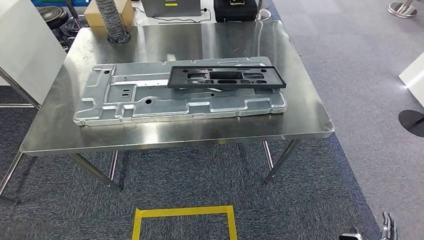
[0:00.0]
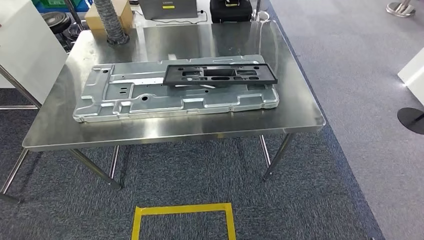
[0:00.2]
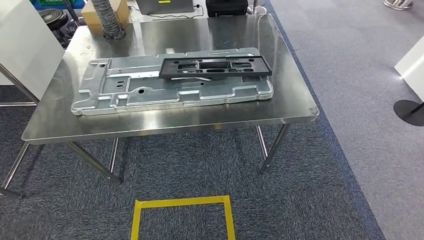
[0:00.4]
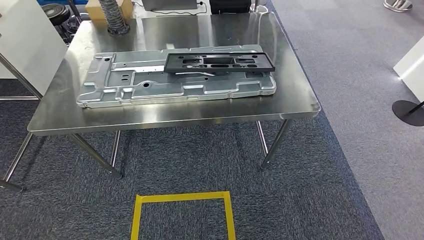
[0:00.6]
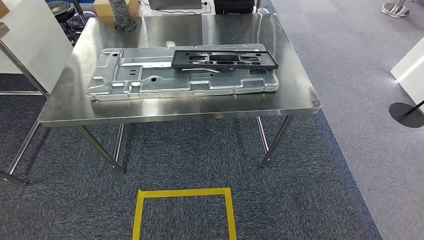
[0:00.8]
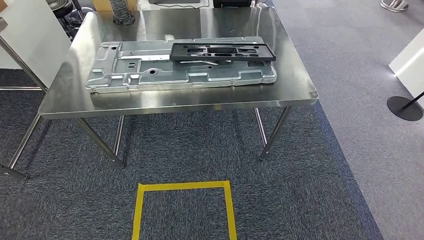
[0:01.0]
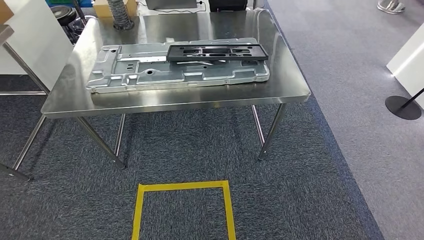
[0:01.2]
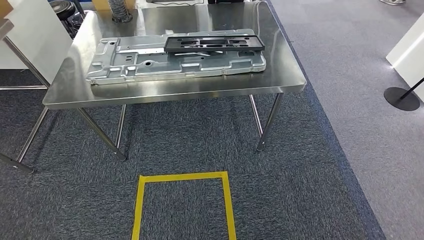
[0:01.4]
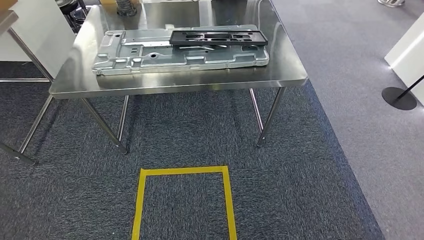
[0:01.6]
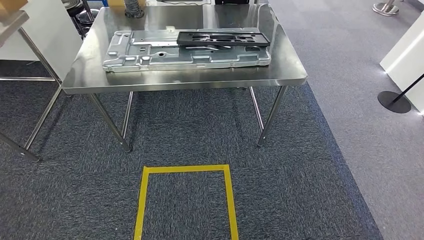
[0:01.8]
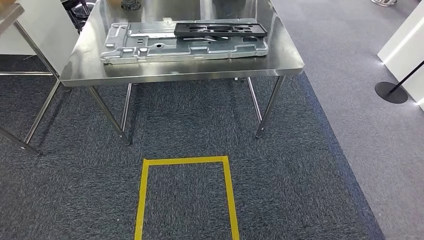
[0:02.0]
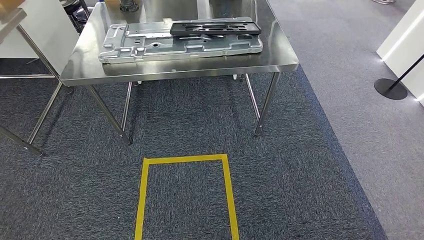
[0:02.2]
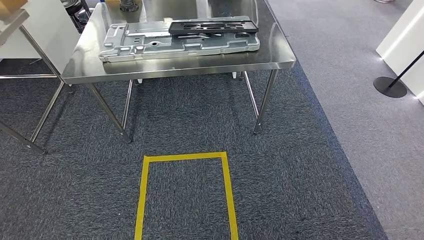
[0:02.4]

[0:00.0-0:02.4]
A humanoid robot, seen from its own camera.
Step, 0:00.0 to 0:02.4: Return to the initial position at the workbench.

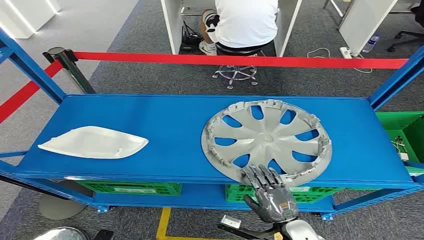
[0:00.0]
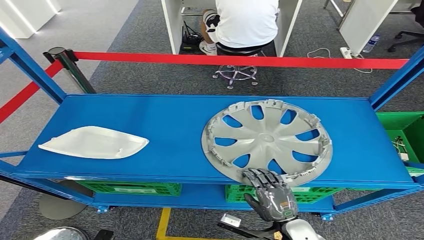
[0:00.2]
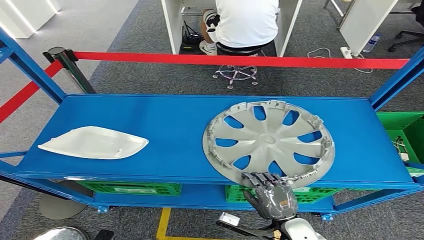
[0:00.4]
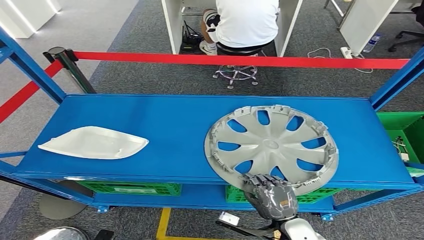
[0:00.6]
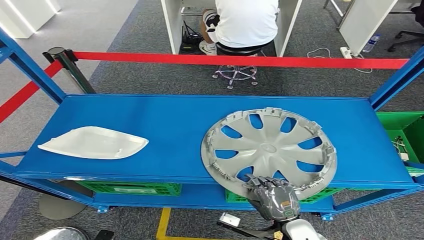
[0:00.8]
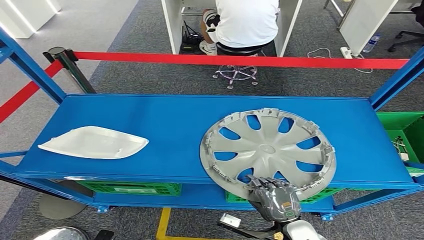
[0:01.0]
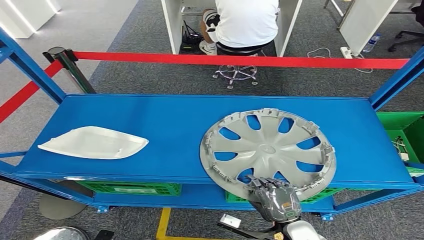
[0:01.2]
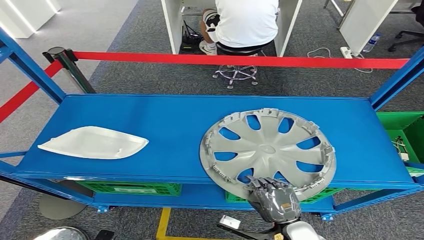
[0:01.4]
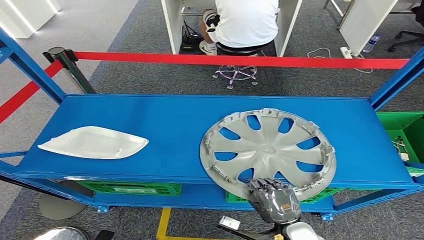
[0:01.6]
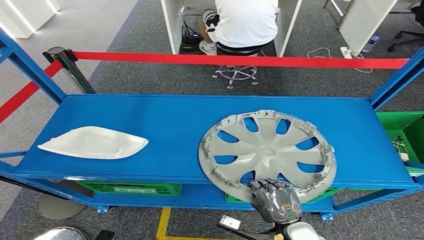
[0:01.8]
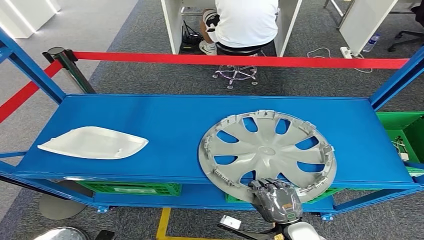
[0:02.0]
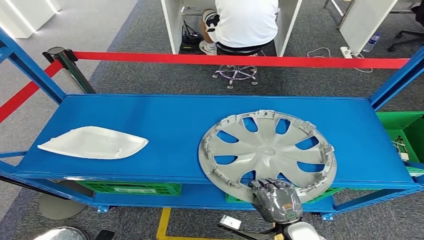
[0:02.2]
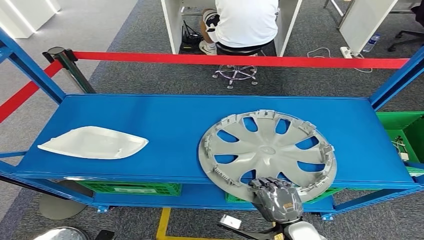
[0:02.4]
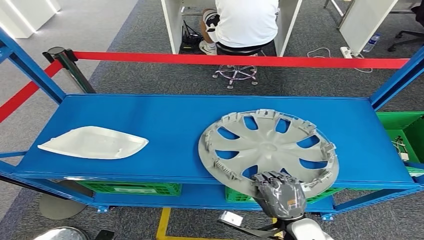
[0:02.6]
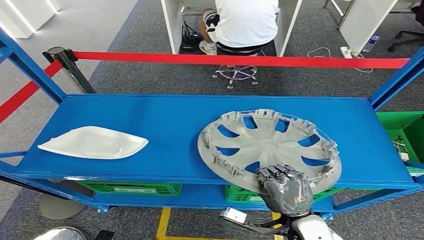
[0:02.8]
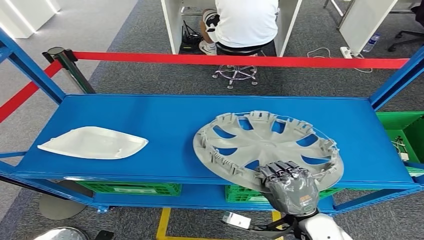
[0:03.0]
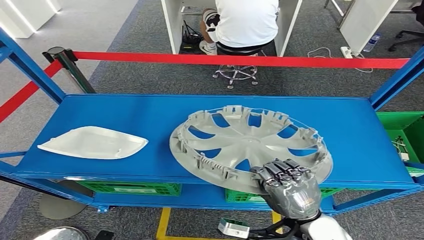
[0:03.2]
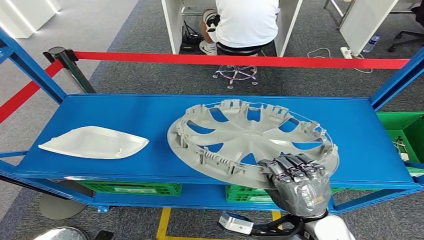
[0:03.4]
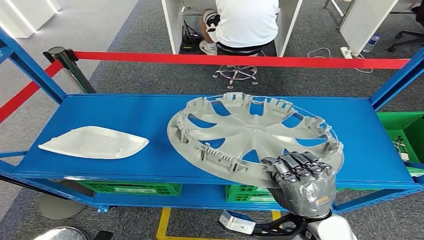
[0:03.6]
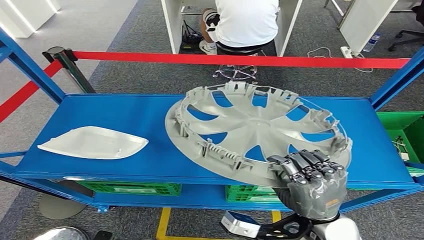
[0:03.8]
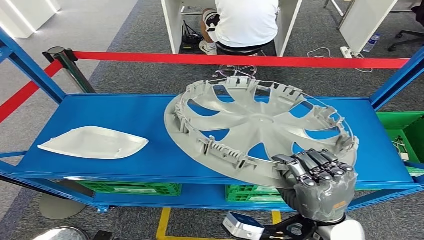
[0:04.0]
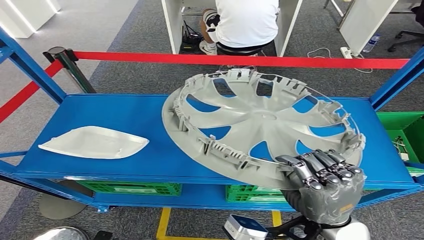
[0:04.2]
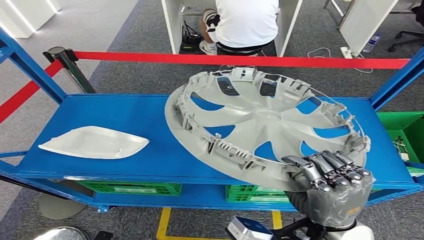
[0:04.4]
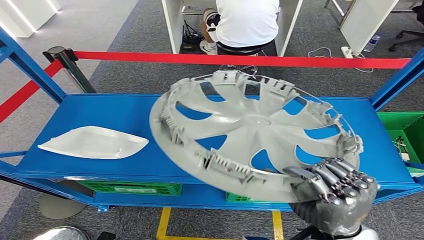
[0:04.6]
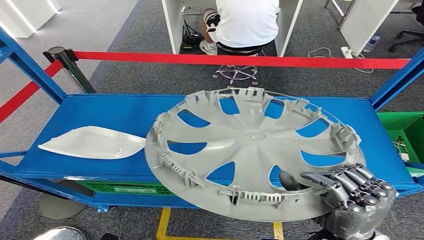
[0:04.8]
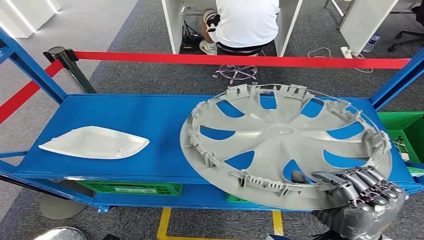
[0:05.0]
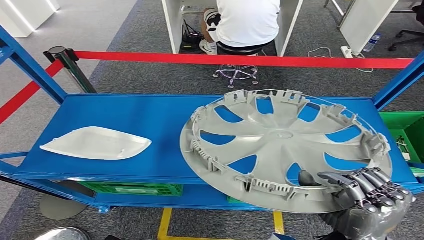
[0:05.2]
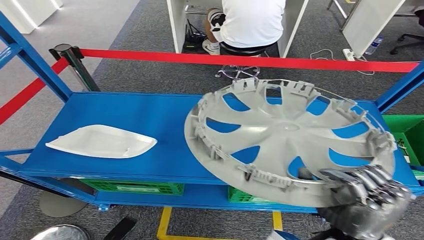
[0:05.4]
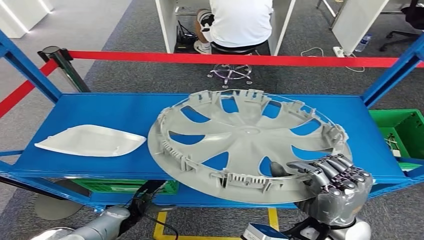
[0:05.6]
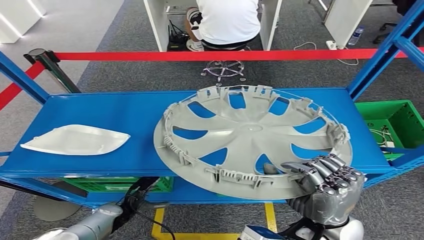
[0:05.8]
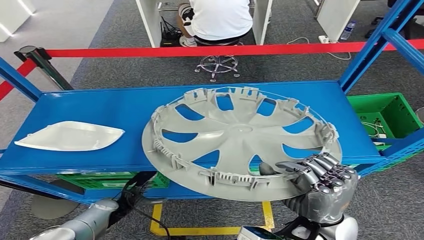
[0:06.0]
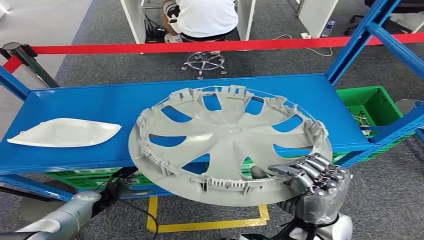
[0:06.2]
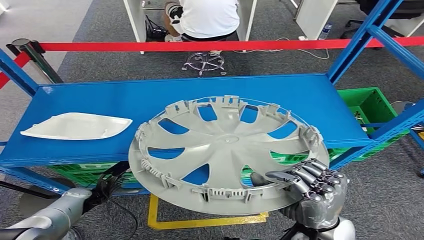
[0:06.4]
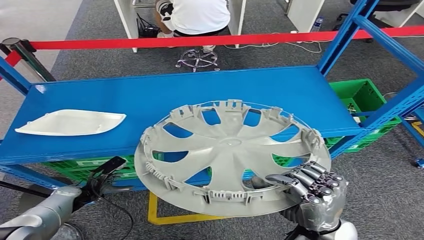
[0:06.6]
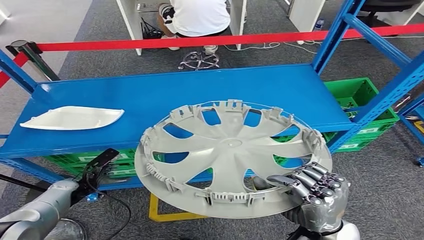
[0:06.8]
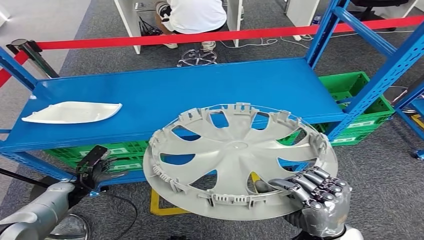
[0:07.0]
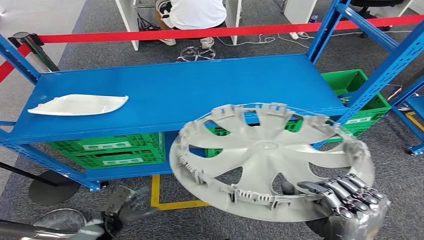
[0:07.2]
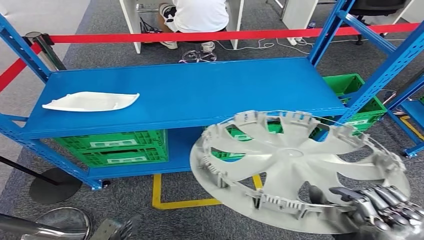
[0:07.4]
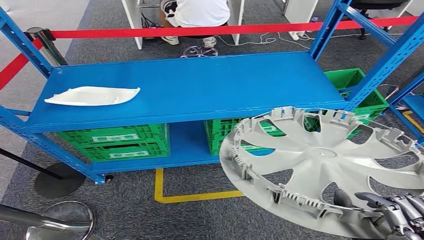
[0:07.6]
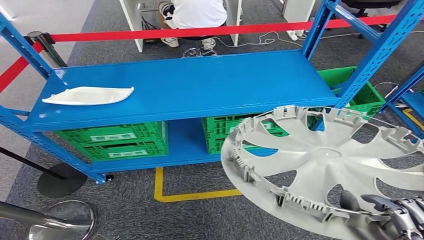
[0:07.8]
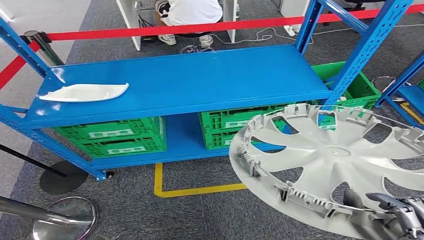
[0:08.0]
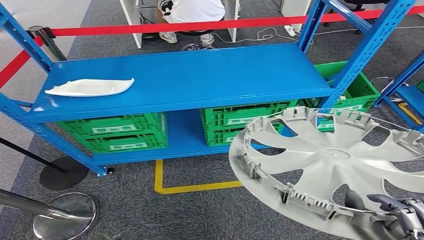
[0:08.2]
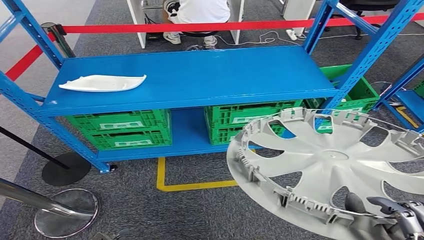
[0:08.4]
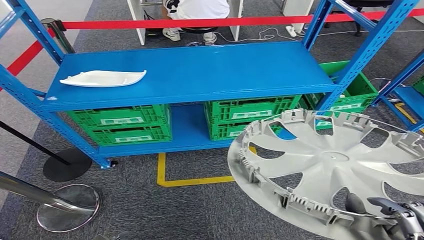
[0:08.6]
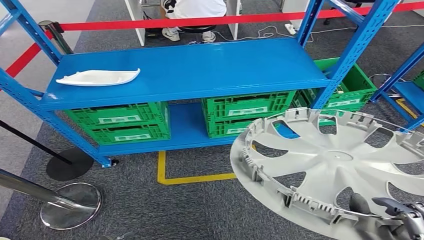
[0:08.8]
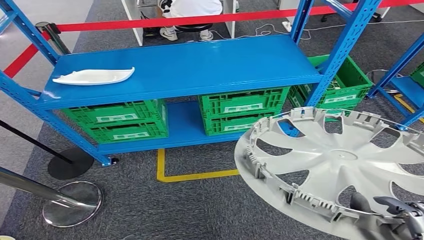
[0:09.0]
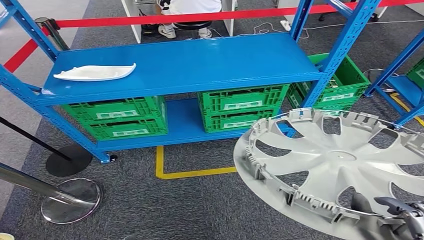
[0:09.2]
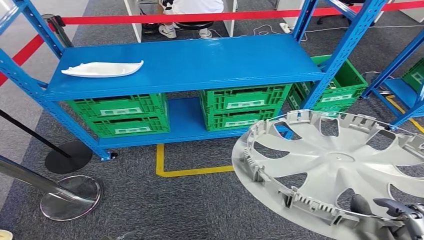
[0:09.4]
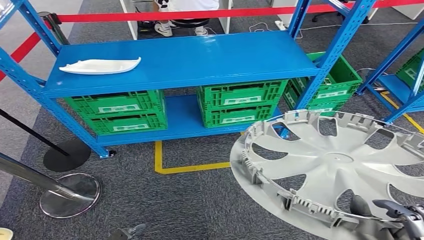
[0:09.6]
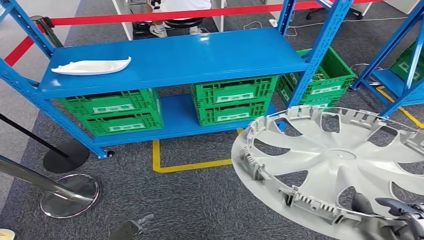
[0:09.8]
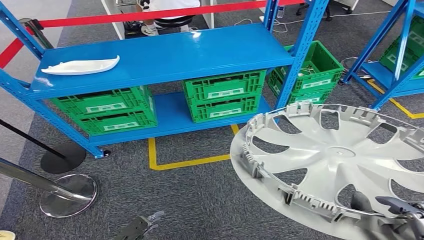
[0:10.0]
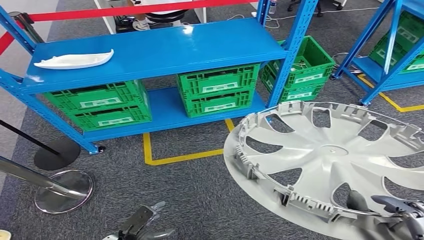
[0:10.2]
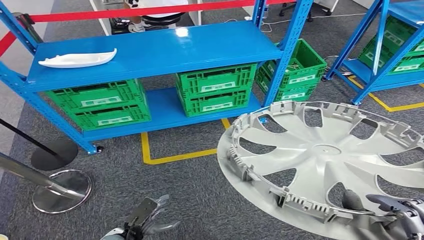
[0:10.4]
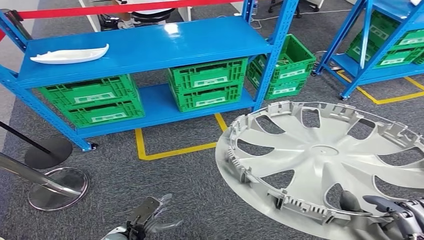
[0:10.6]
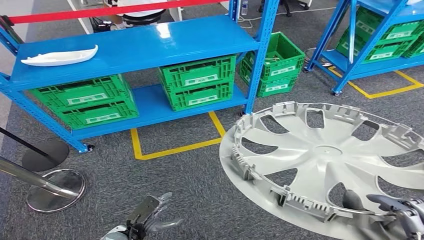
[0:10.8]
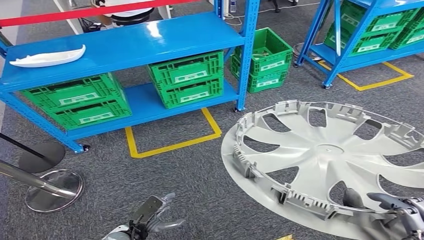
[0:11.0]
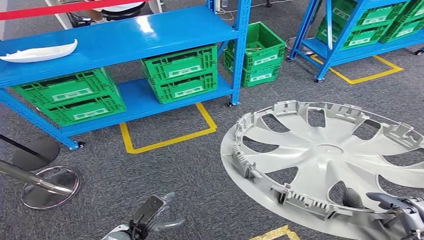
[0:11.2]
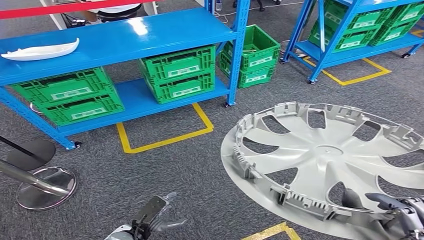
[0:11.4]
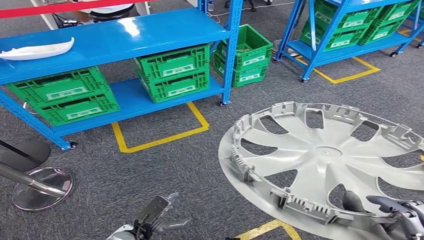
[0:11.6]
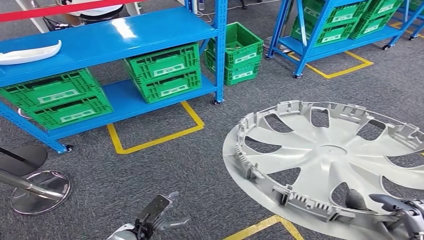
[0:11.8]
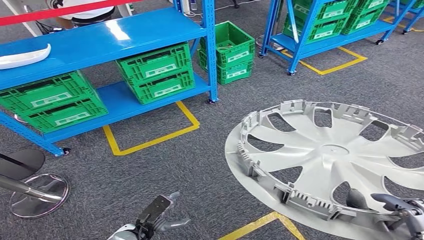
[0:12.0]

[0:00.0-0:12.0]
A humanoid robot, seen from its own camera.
Step, 0:00.0 to 0:06.0: Pick up the small component from the shelf.
0:01.6 to 0:03.0: The right hand moves upward, approximately 10 cm.

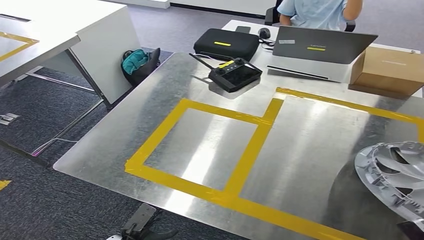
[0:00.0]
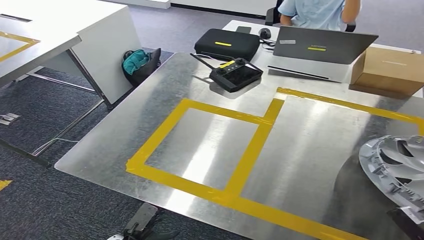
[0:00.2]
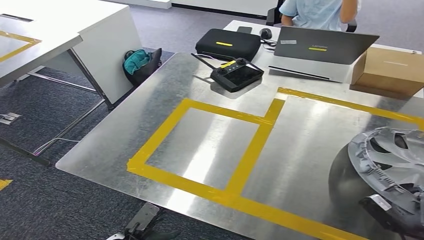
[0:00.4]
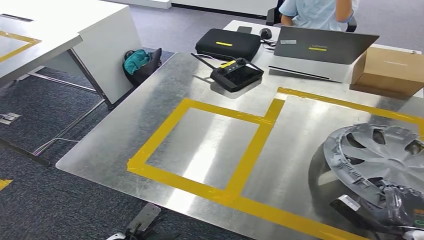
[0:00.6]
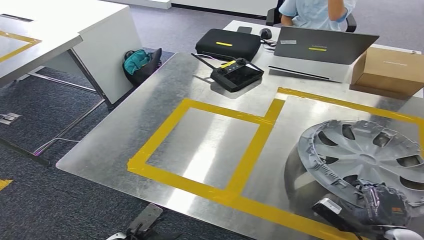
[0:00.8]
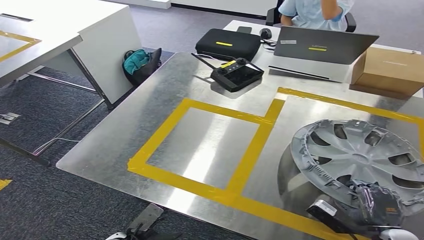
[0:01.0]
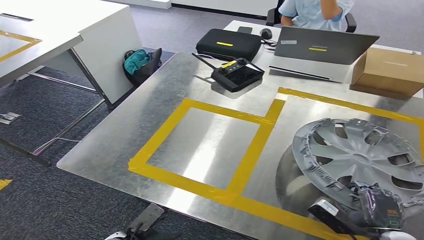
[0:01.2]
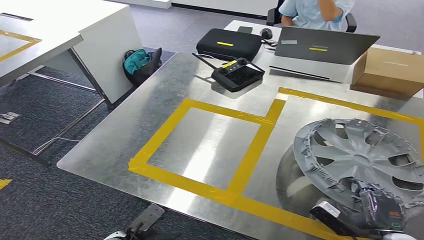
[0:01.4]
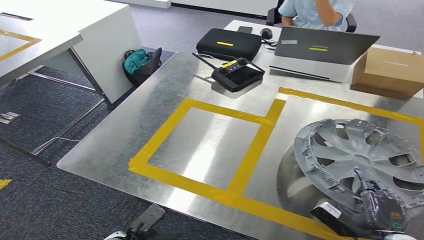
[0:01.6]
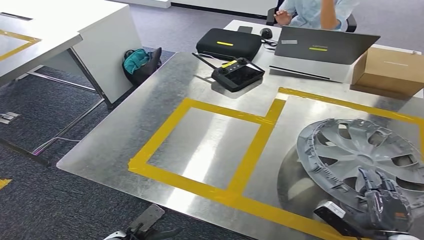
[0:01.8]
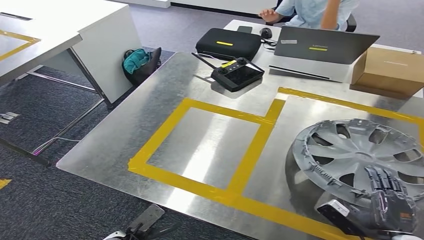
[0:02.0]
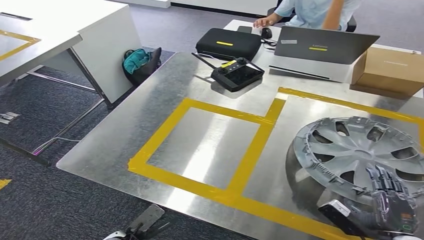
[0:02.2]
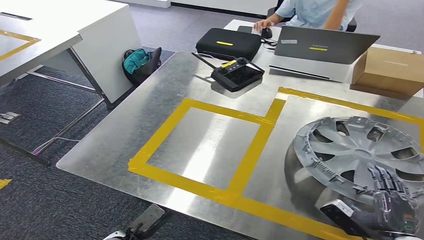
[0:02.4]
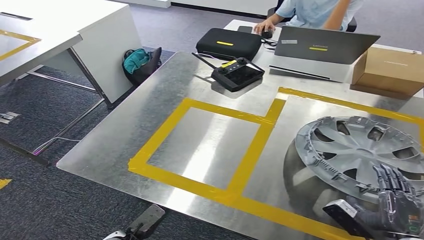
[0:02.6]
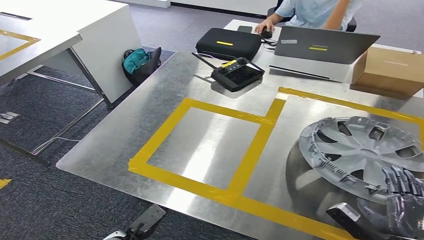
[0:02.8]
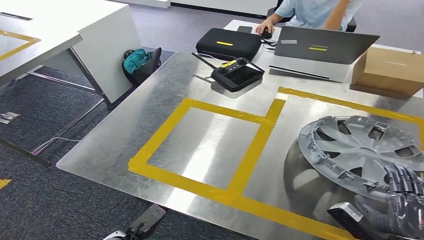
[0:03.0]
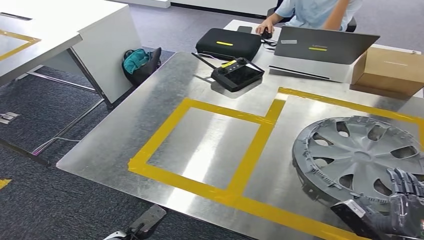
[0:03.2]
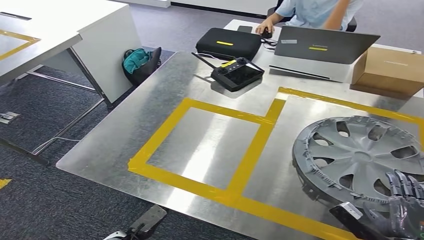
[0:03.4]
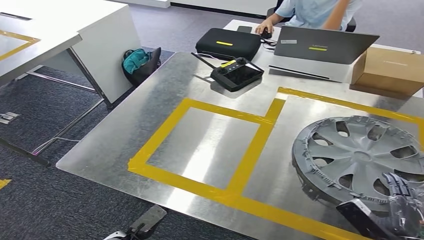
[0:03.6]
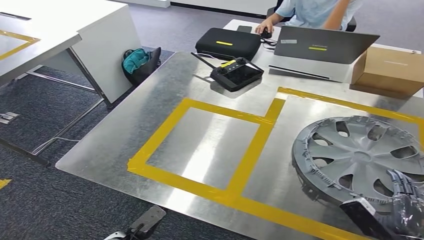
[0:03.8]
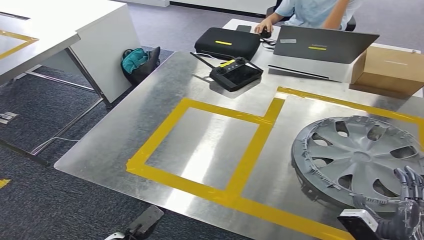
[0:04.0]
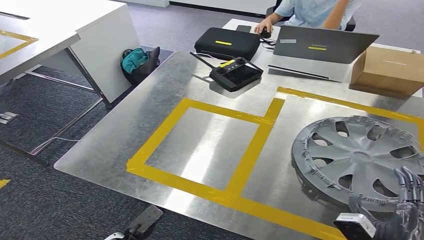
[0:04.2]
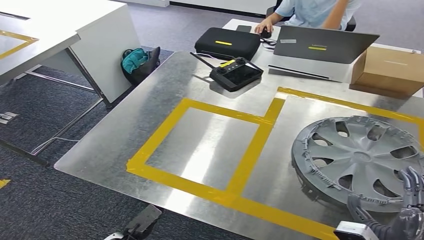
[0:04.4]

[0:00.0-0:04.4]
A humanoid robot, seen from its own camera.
Step, 0:00.0 to 0:04.4: Insert the small component into the corresponding slot on the workbench.
0:00.0 to 0:01.4: The right hand heads to the left and forward, covering about 15 cm.
0:01.4 to 0:03.0: The hands move only a little.
0:03.0 to 0:04.4: The right hand shifts about 5 cm to the left.
